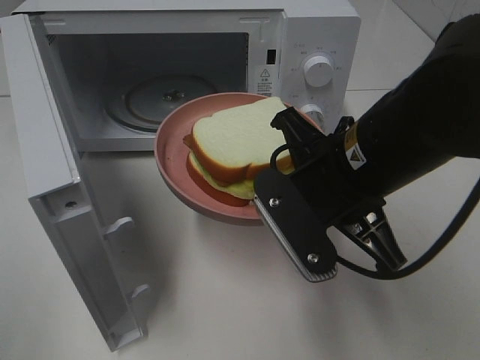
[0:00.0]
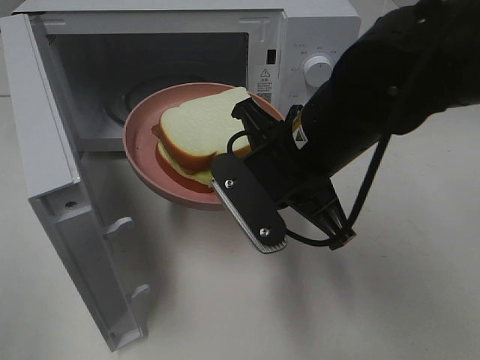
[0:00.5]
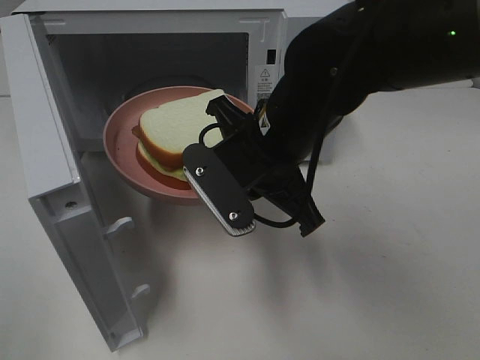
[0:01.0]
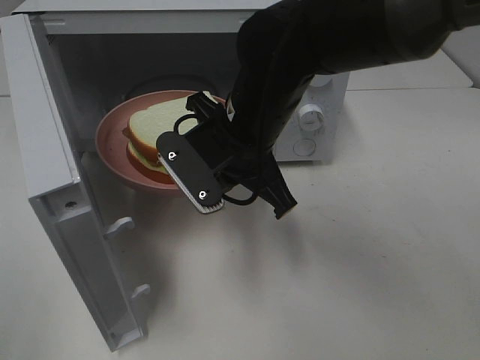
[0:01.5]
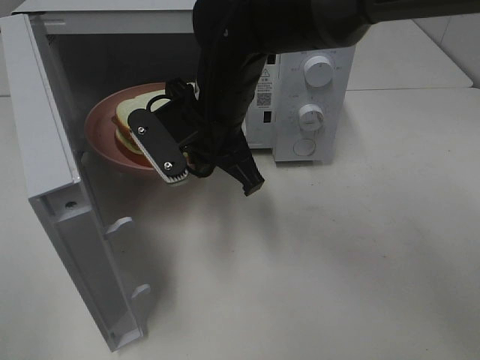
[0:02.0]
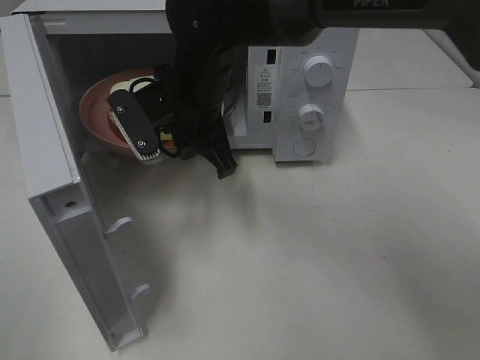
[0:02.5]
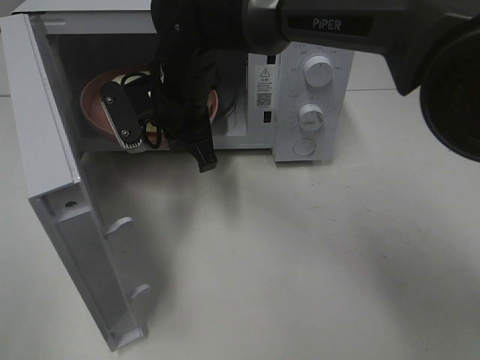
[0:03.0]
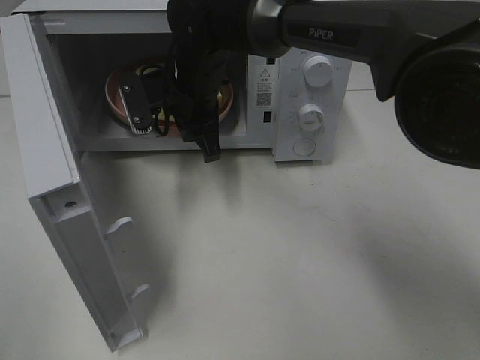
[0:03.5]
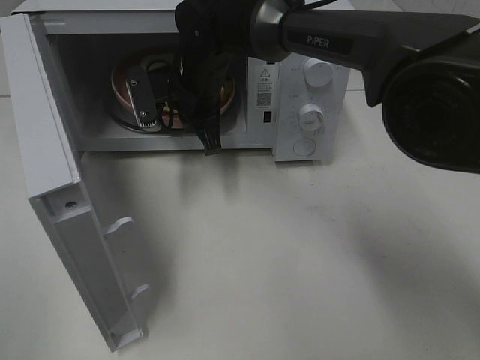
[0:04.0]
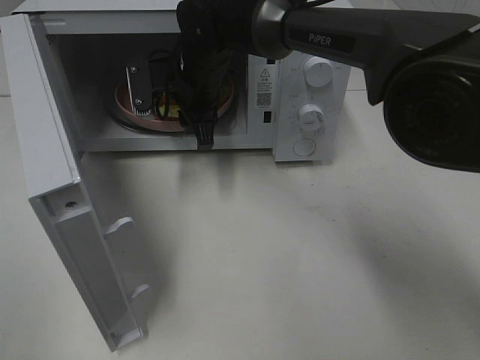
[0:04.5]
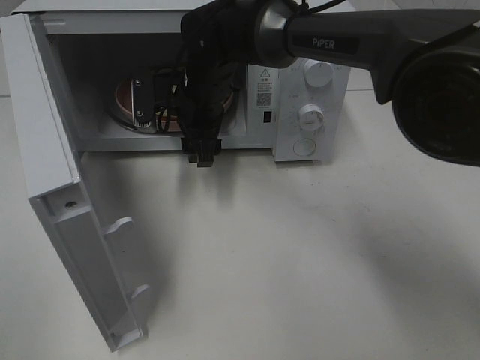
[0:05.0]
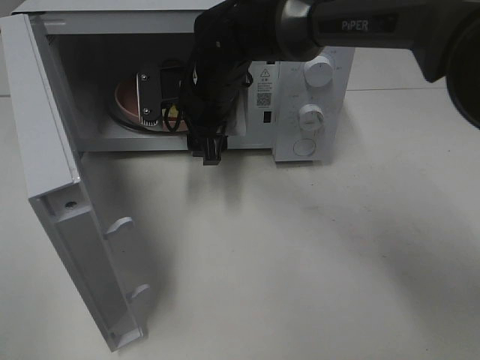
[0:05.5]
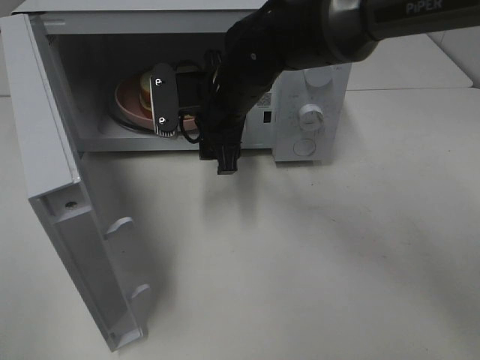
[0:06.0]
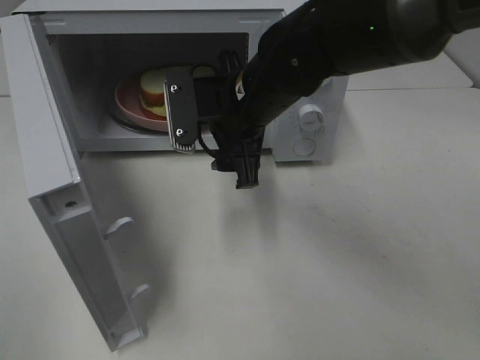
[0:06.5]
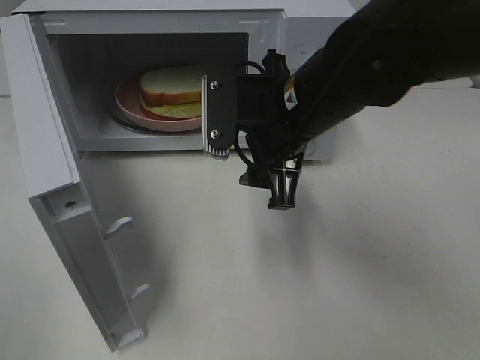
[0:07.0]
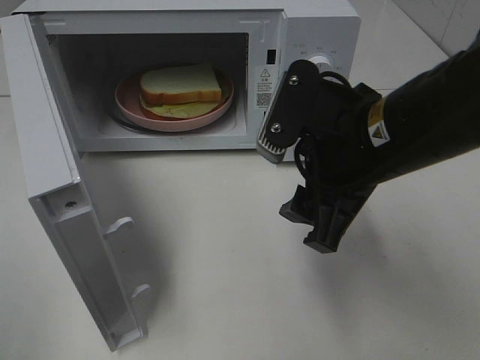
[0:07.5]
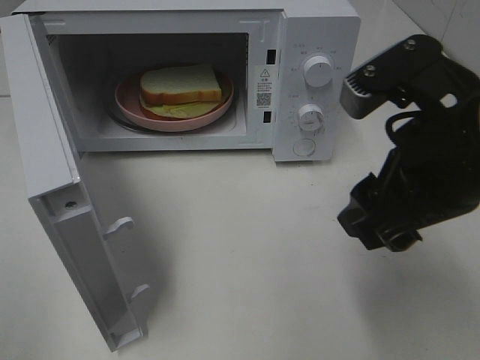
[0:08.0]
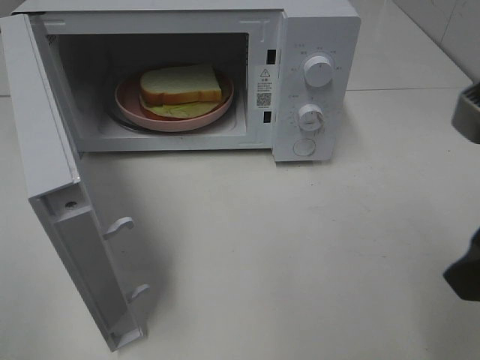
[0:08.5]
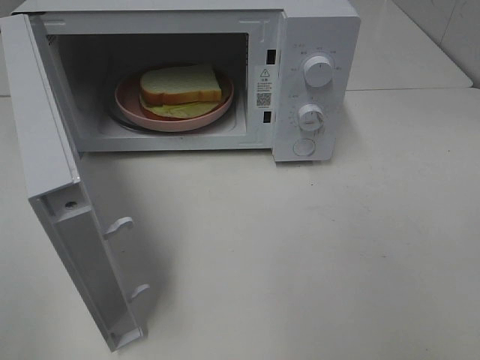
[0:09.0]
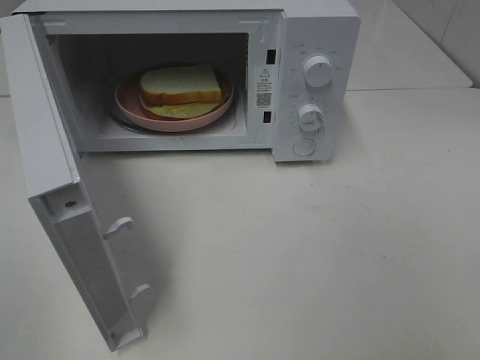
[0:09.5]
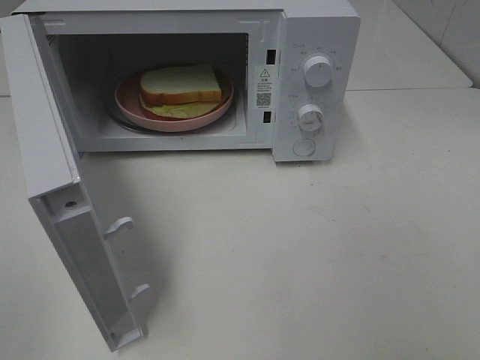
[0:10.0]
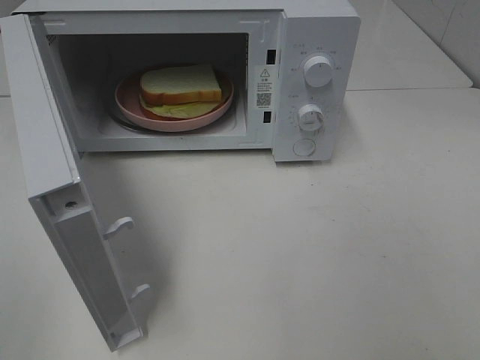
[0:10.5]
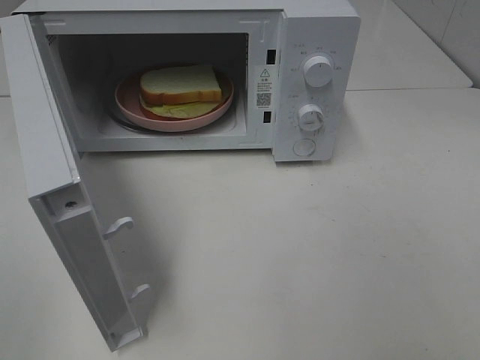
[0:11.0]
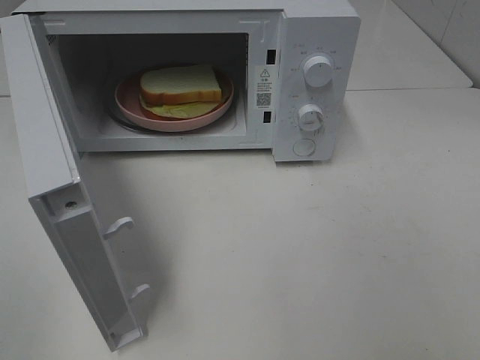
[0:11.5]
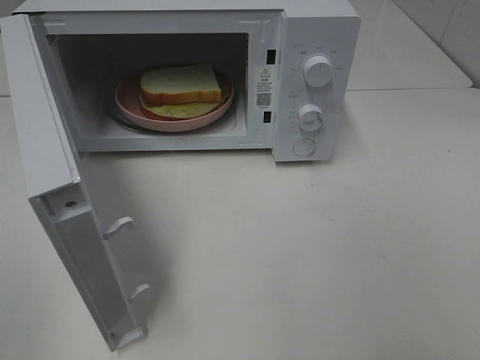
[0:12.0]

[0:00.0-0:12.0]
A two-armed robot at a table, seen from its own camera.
Task of the whole recording: Heat Sandwich.
Step, 0.0 to 6.0 s: Right hand: place the plate in the microwave.
0.0 to 2.0 s: The right gripper is displaced to the left and forward by approximately 15 cm.
2.0 to 4.0 s: The right gripper shifts roughly 10 cm forward.
4.0 to 6.0 s: The right gripper heads backward, covering roughly 5 cm, and opens.
6.0 to 8.0 s: The right gripper heads backward, to the right and upward, covering about 25 cm.
8.0 to 10.0 s: The right gripper shifts approximately 20 cm backward and to the right.
10.0 to 12.0 s: Both grippers stay put.

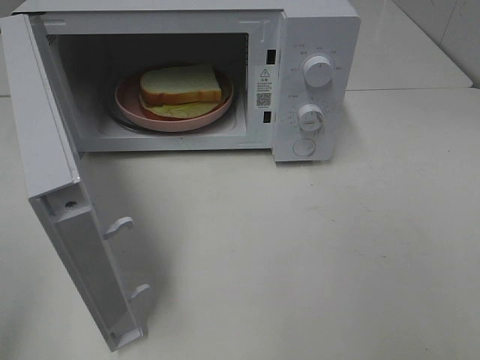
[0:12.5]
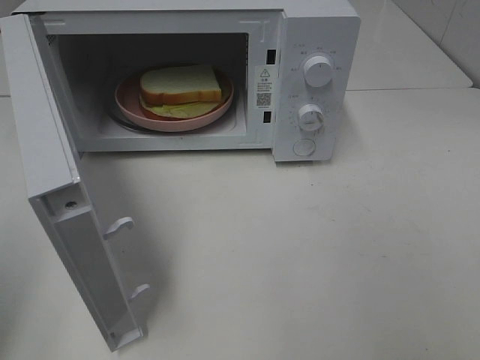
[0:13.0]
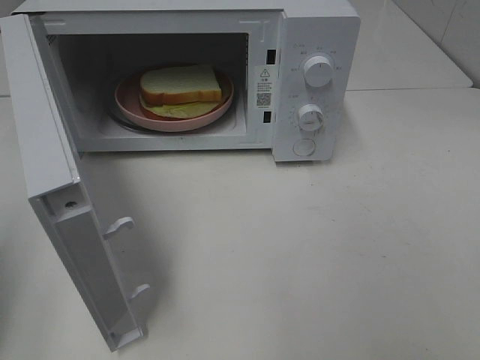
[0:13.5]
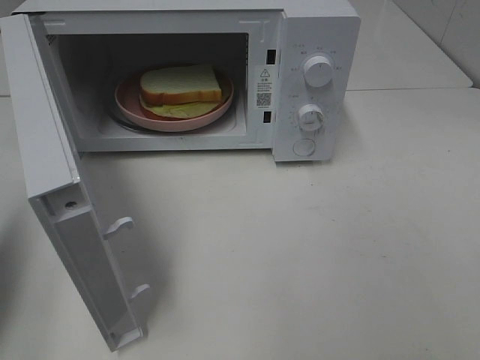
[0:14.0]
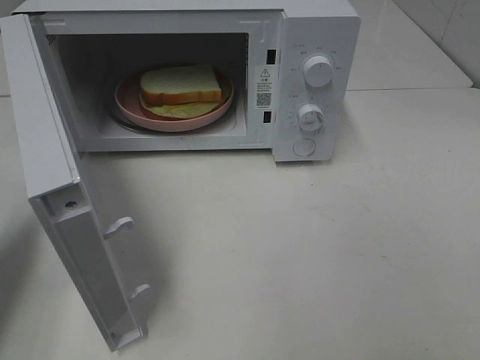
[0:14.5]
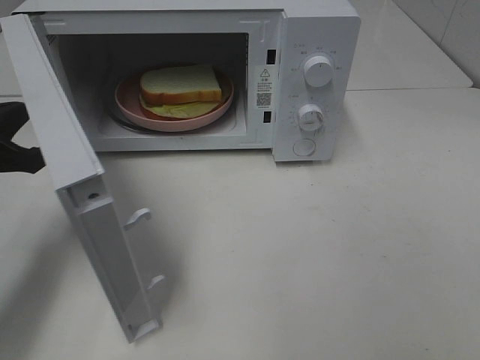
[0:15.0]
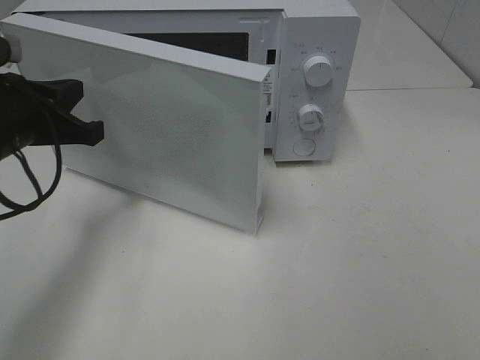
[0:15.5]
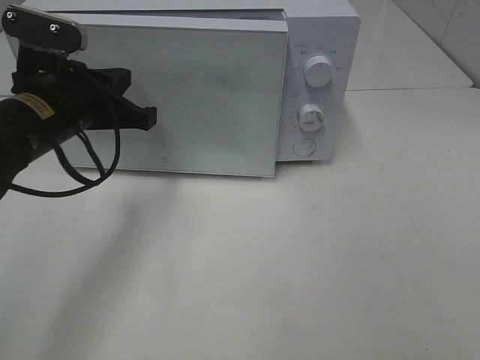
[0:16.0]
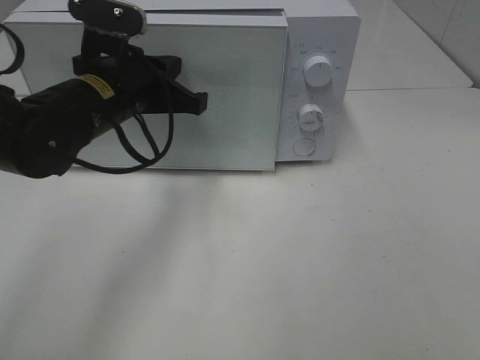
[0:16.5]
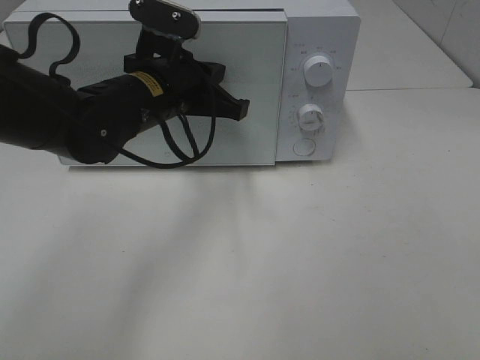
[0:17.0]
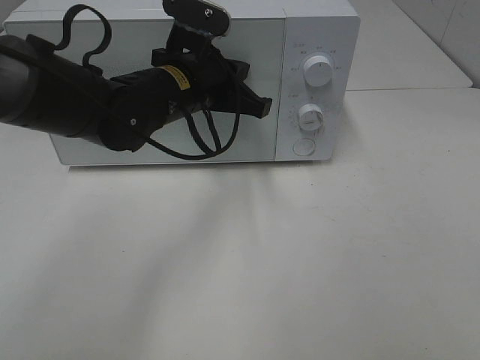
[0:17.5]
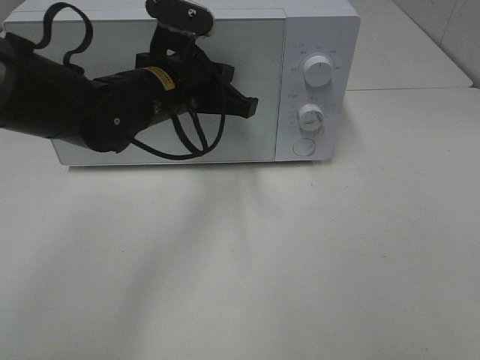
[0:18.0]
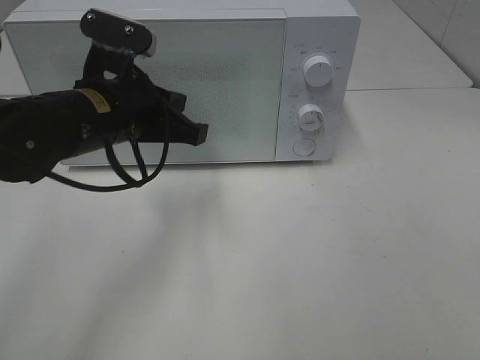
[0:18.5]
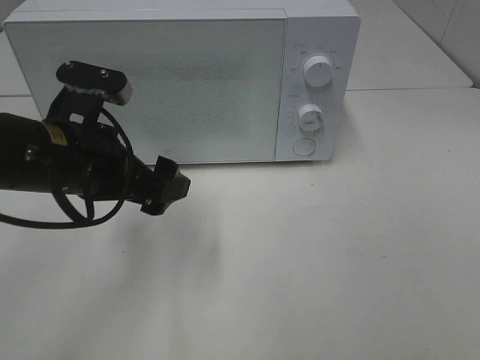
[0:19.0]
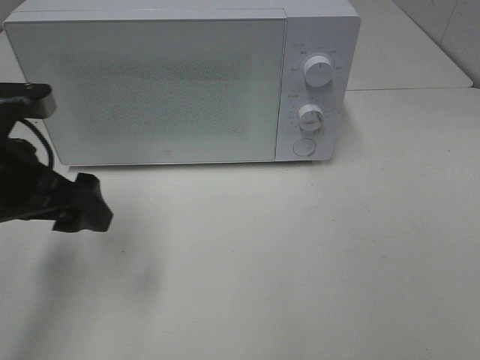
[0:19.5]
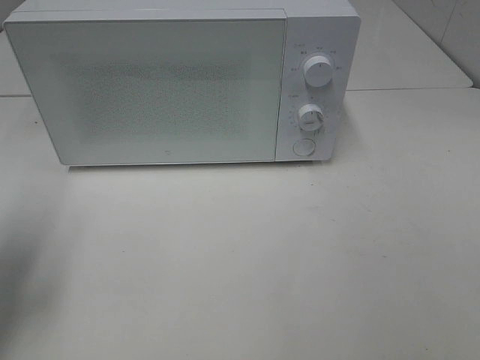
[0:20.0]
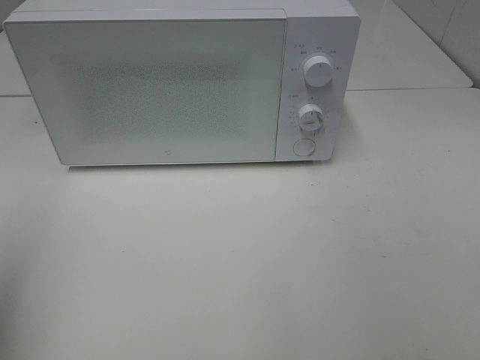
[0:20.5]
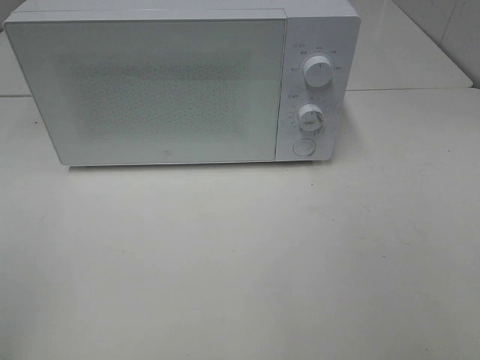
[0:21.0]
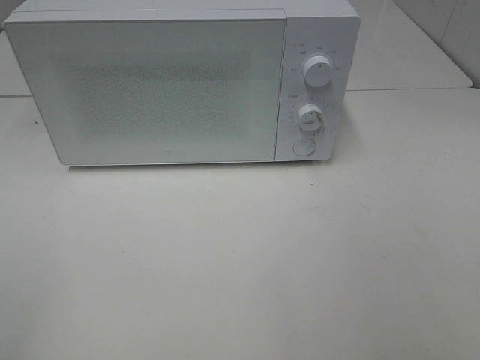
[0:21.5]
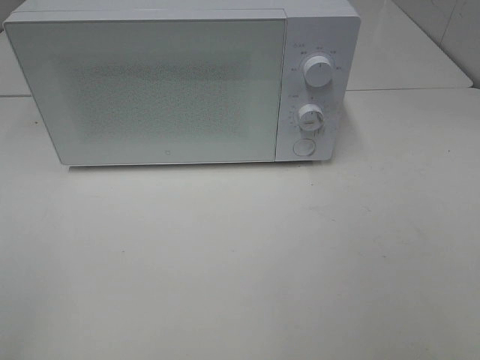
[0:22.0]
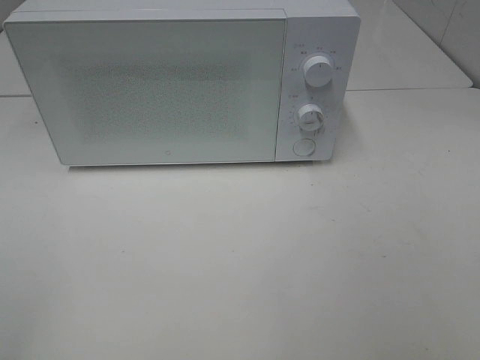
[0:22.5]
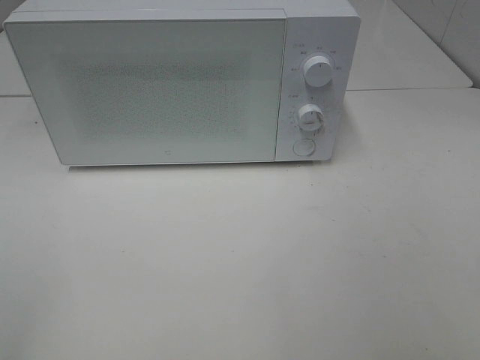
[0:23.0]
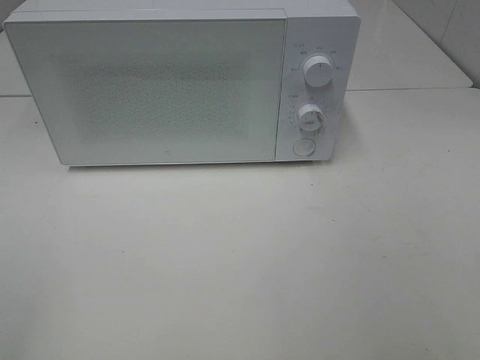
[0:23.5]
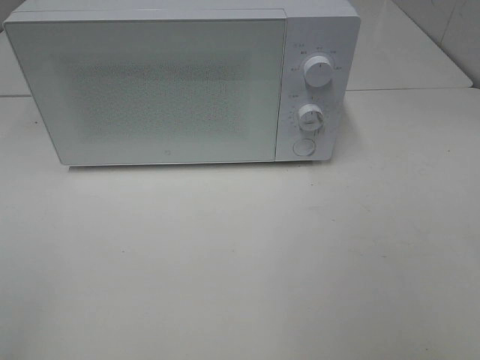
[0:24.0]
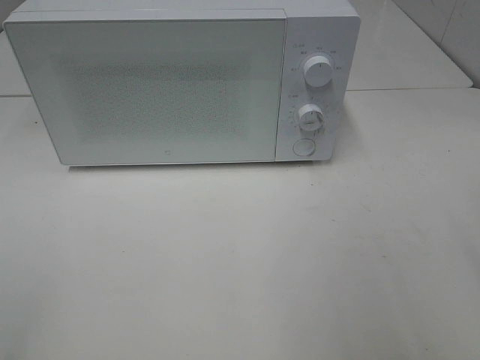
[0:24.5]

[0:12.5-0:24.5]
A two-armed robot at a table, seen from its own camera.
Task of the whole recording: Heat Sandwich.
Step, 12.5 to 17.5 s: Left hand: close the microwave door.
12.5 to 14.5 s: The left gripper is displaced forward and downward by roughly 20 cm, and closes up.
14.5 to 16.5 s: The left gripper goes roughly 25 cm to the right and forward.
18.5 to 20.5 s: The left gripper shifts roughly 30 cm to the left, backward and upward, and opens.
20.5 to 22.5 s: The left gripper goes some 15 cm backward.

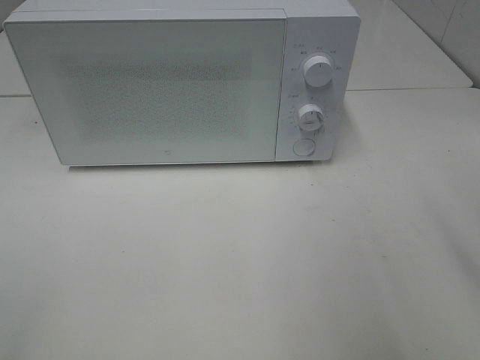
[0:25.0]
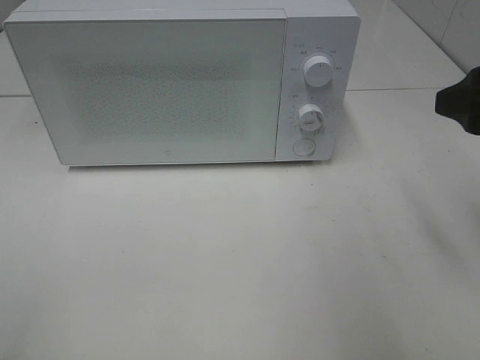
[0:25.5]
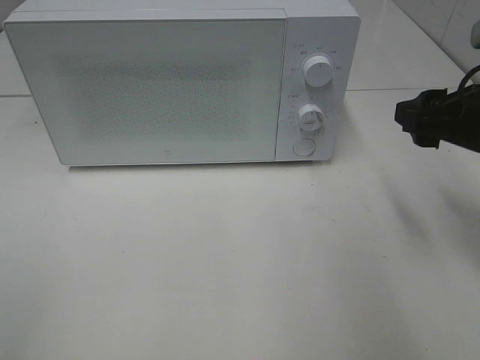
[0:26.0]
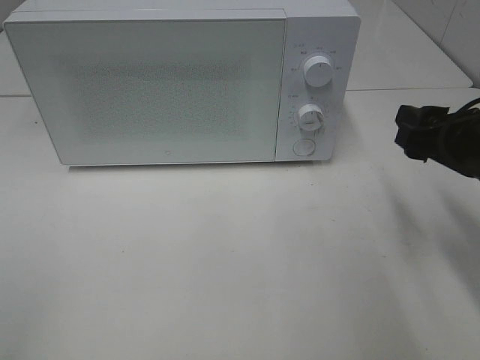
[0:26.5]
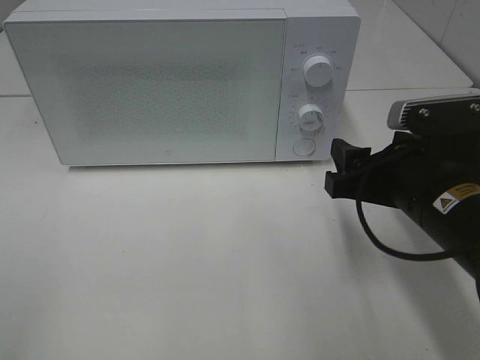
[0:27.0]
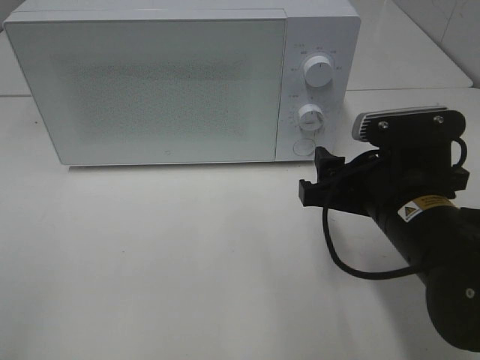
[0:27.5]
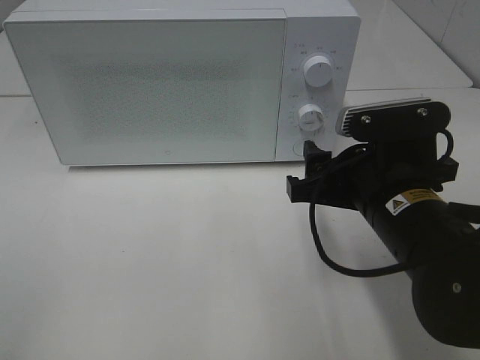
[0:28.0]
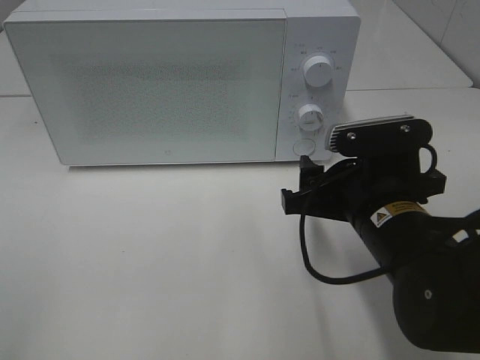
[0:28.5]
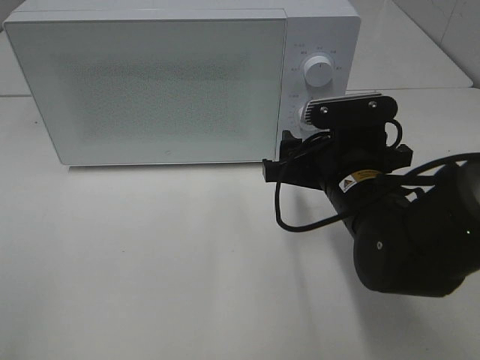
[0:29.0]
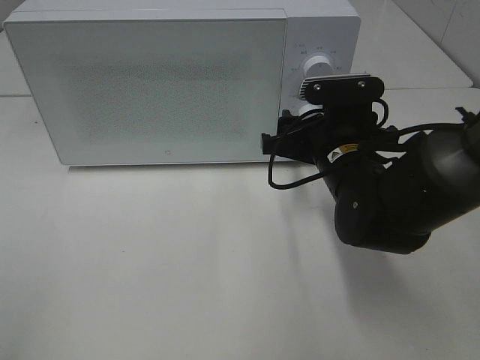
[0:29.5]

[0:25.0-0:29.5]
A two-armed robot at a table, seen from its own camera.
Task of the whole recording: Heat Sandwich.
25.0 to 27.0 s: The right gripper shifts roughly 15 cm downward and to the left.
27.0 to 29.5 s: The right gripper goes some 10 cm forward and to the left.
